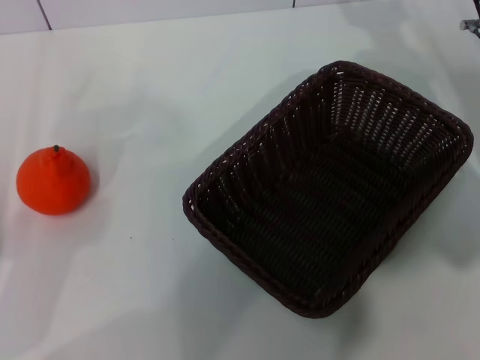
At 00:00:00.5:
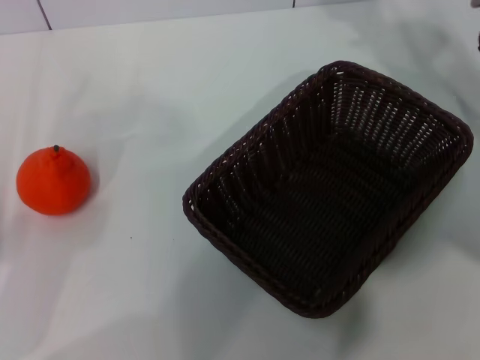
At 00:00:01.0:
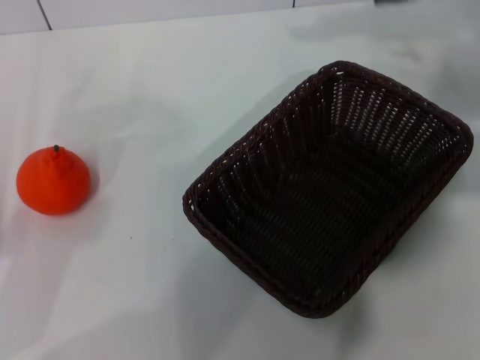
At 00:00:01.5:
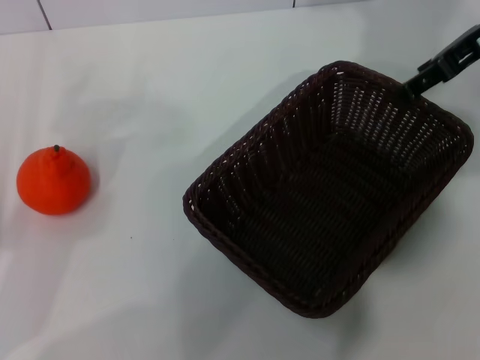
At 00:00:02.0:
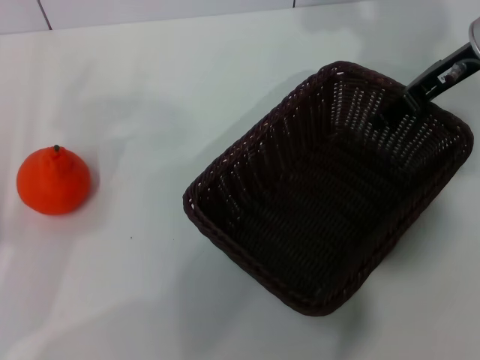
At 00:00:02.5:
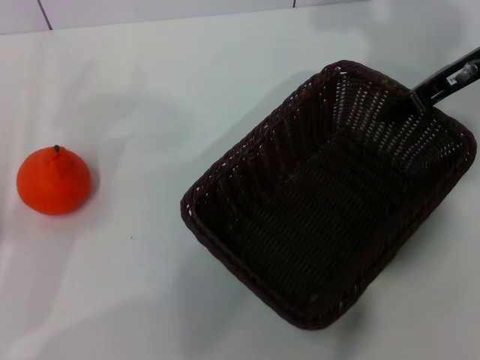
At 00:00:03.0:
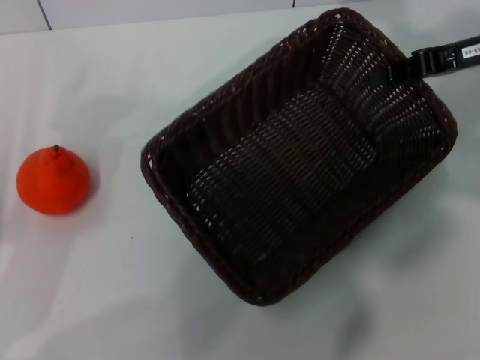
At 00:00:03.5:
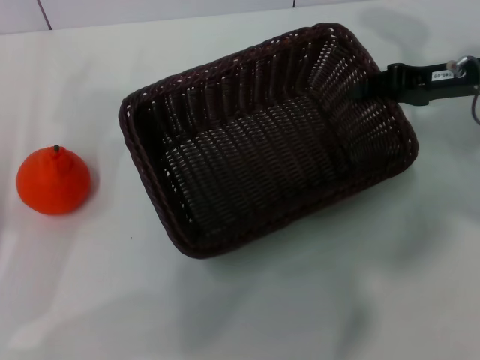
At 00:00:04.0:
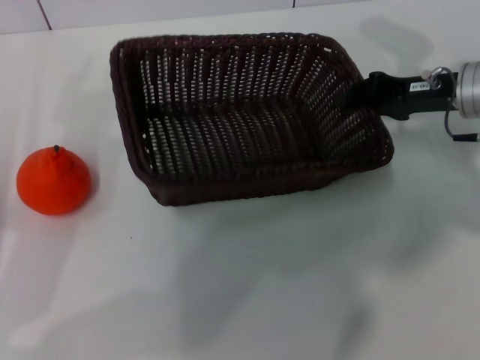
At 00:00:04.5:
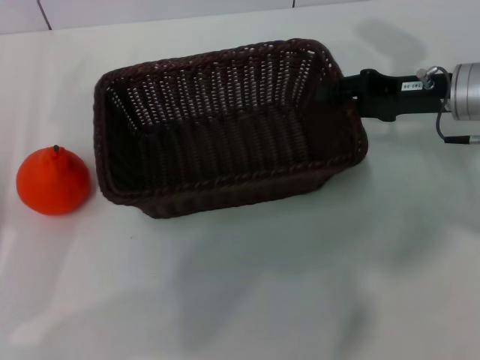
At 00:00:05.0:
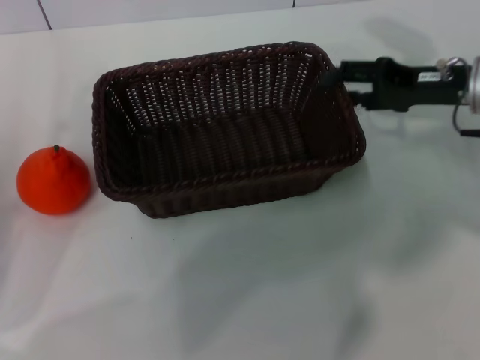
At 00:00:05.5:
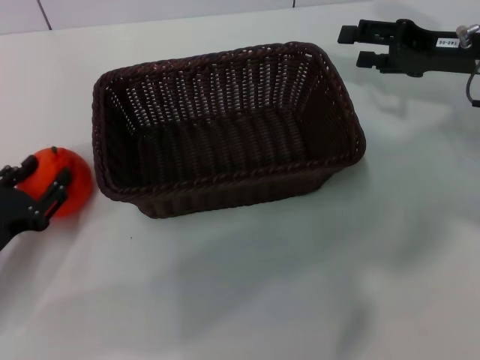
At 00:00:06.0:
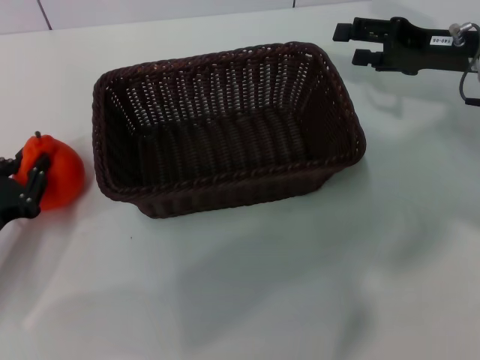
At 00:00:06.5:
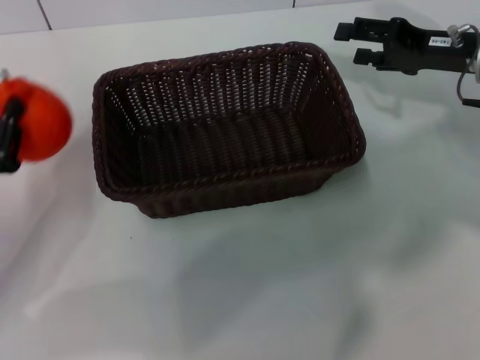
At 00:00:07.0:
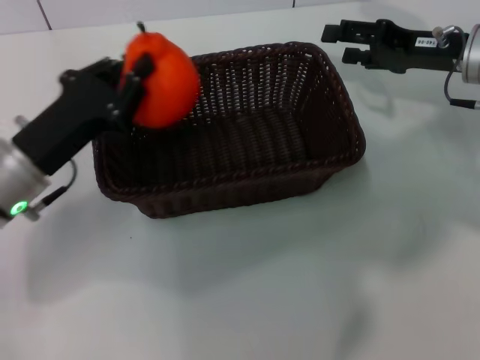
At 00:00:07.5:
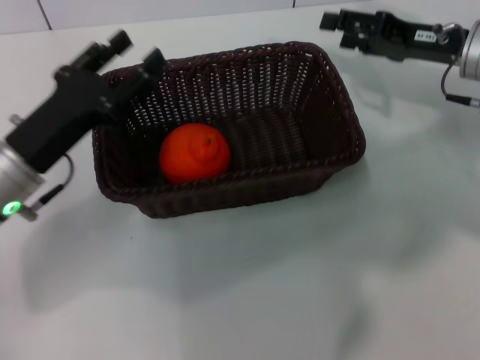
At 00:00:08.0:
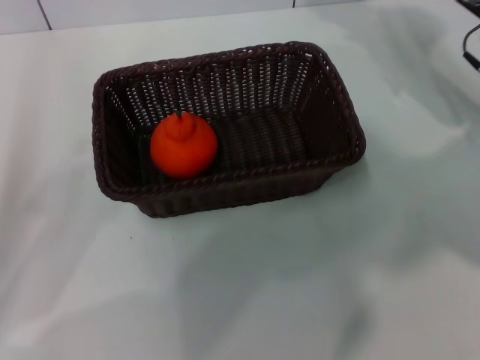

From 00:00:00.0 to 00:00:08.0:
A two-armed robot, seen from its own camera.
Task of the whole recording: the right gripper pick up the black basket and place it horizontally in the middle of the table, the left gripper pick up the orange and place it into the black basket.
Step, from 00:00:00.0 to 00:00:02.5: Pick up the dark basket with the right gripper.
Step, from 00:00:03.0 to 00:00:05.0: Place the dark basket in the center of view with the right gripper.
Step, from 00:00:05.5 to 00:00:06.0: Pick up the orange with the left gripper.
Step, from 00:00:06.5 to 00:00:07.0: Place the orange into the dark basket with the left gripper.
From 00:00:00.0 to 00:00:02.0: The right gripper moves upward, about 10 cm.
From 00:00:02.0 to 00:00:04.0: The right gripper is displaced downward by some 5 cm, and closes its fingers.
From 00:00:04.0 to 00:00:06.0: The left gripper ends up about 5 cm from where it was, and closes its fingers, while the right gripper opens up.
From 00:00:06.0 to 00:00:08.0: The left gripper travels upward by roughly 5 cm, travels to the right and back again, about 10 cm each way, and opens up.
